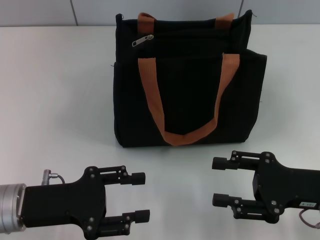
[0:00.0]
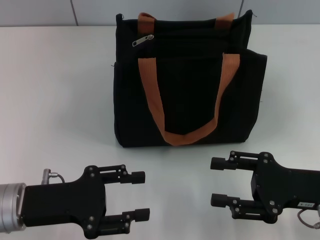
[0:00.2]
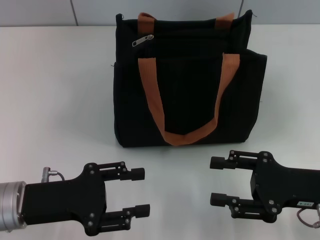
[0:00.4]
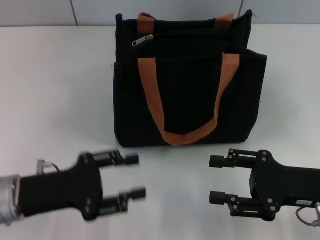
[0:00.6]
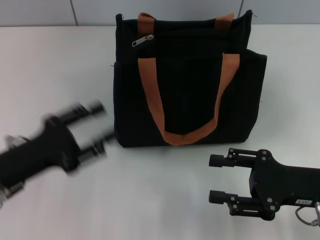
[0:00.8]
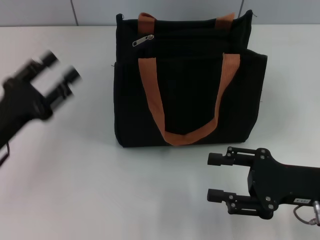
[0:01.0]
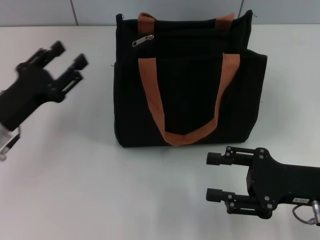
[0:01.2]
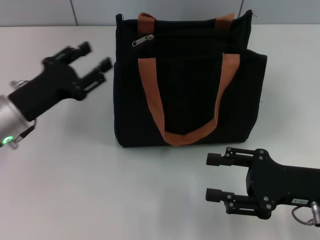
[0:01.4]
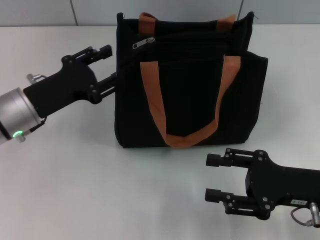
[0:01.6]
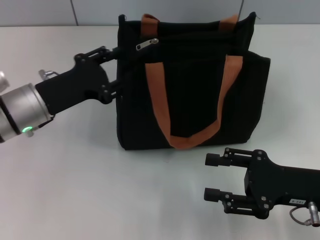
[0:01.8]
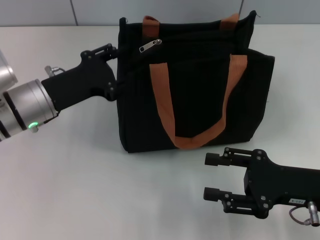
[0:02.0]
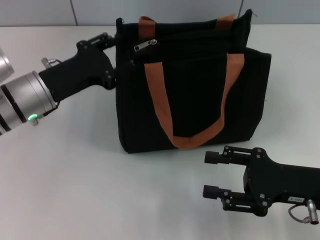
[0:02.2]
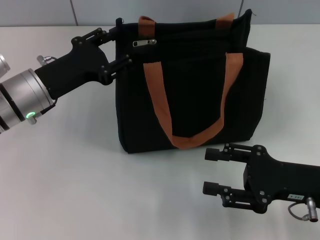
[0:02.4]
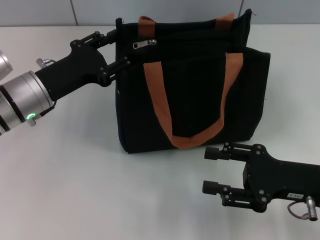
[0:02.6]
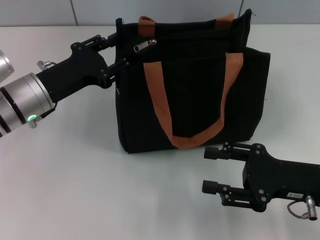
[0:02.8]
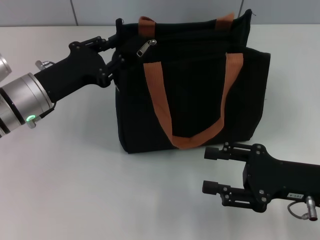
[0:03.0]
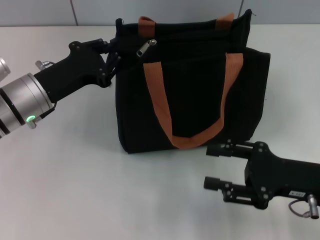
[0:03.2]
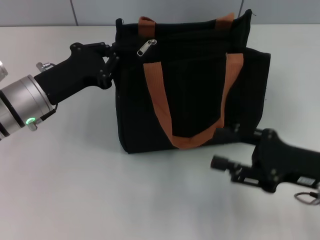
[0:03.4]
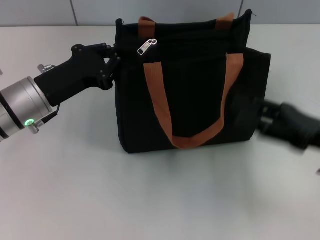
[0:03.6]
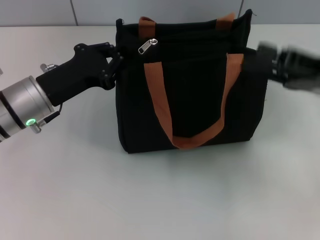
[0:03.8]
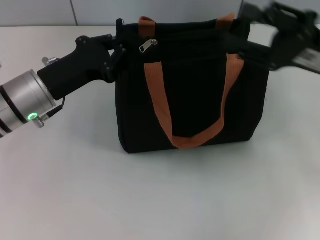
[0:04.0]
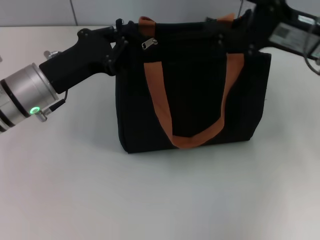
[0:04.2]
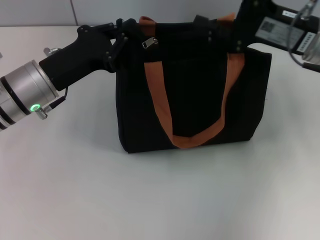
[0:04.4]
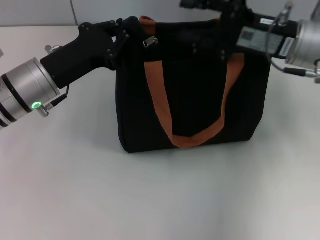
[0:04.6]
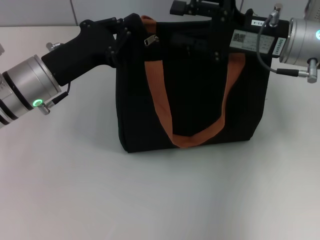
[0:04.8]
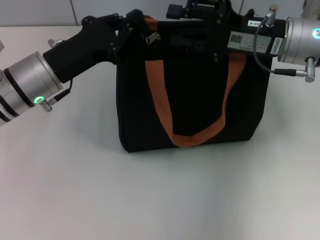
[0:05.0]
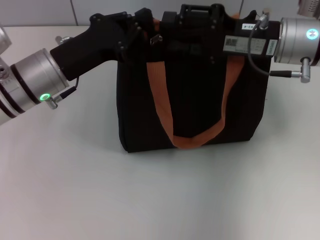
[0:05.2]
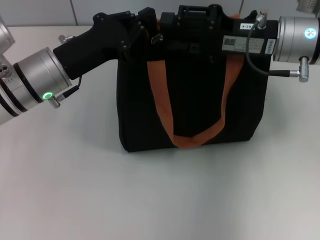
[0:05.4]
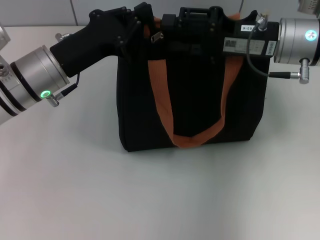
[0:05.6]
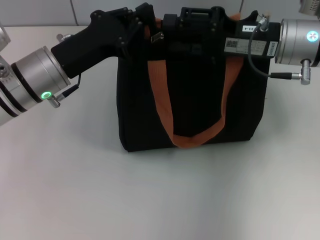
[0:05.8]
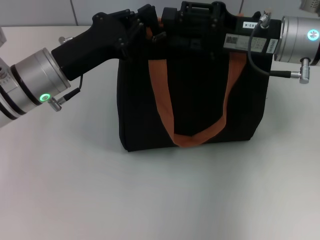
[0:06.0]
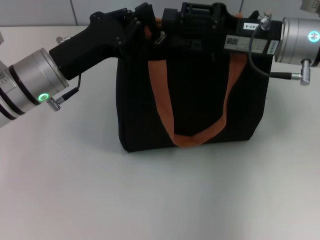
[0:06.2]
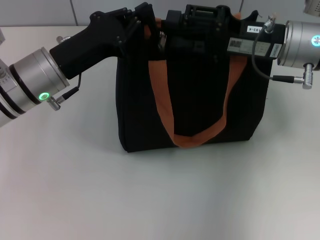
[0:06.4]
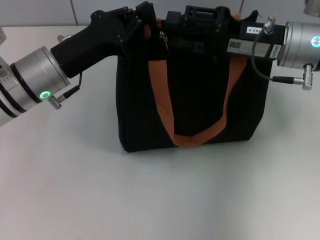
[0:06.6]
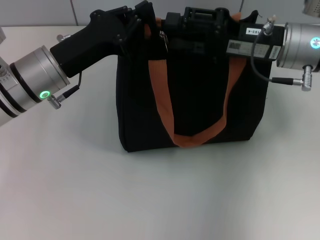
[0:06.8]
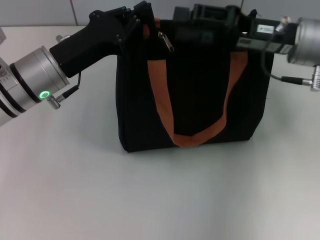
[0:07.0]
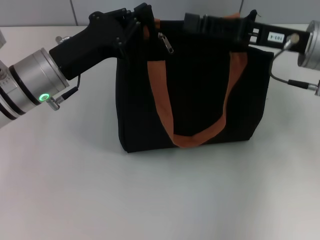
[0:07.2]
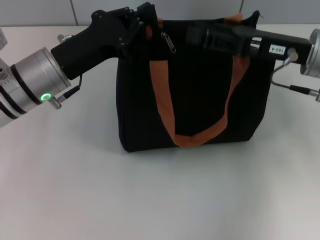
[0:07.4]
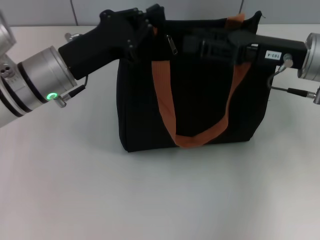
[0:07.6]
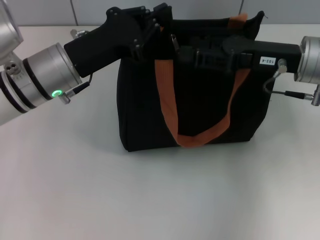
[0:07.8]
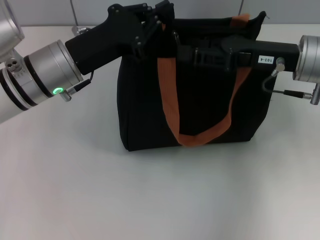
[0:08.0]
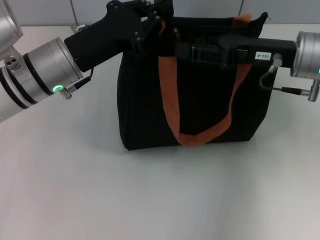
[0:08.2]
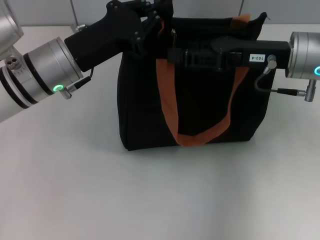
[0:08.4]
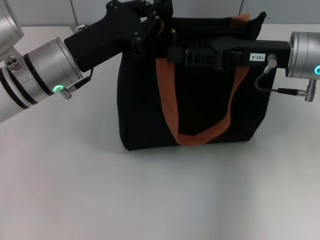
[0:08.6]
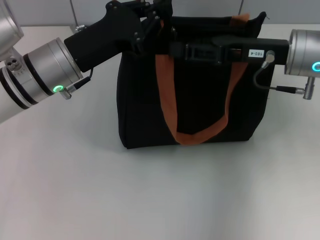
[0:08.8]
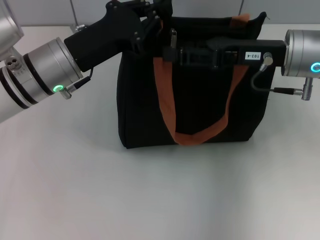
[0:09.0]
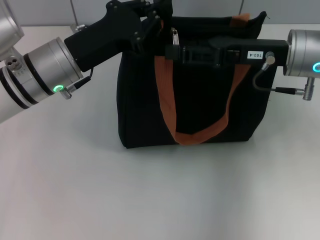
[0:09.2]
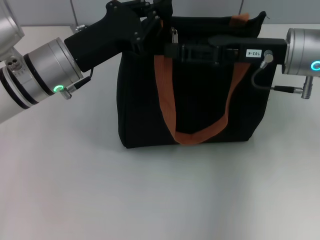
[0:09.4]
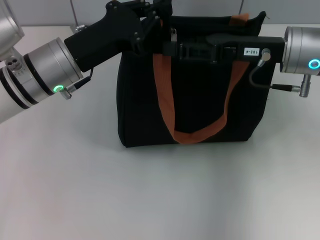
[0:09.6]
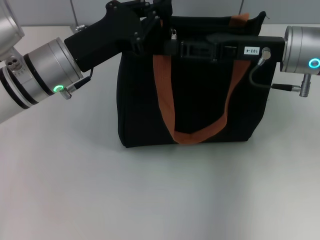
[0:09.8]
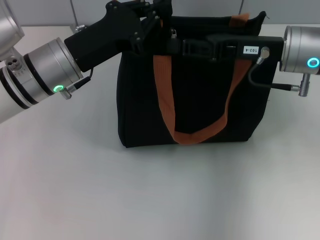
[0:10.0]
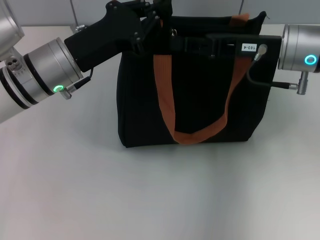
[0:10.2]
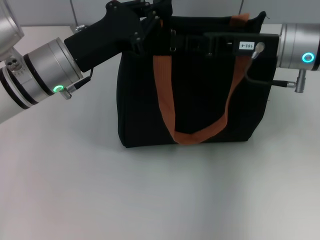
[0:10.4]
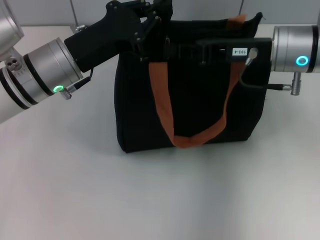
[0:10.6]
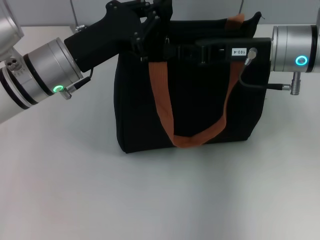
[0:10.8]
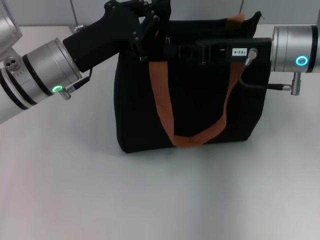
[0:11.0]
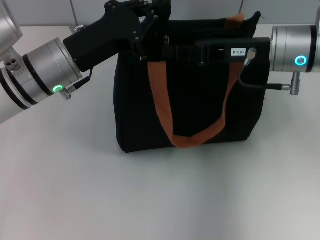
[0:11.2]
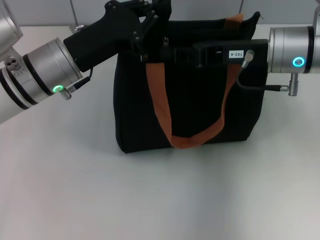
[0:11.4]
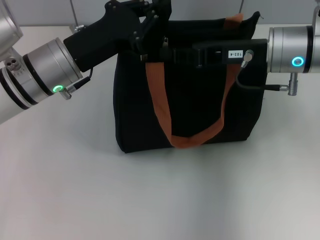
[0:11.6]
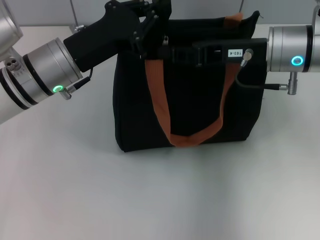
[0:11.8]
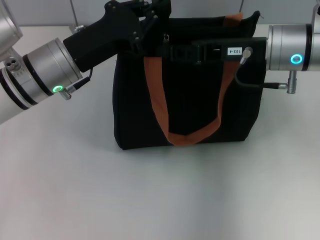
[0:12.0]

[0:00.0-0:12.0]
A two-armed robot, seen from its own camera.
0:00.0 to 0:01.6: The left gripper goes about 10 cm forward.
0:01.6 to 0:03.0: The grippers move only a little.
0:03.0 to 0:04.4: The left gripper closes. The right gripper moves forward and upward, about 15 cm.
0:04.4 to 0:06.0: The grippers stay close to where they were, moving slightly.
0:07.6 to 0:09.0: The grippers make only small movements.
0:09.0 to 0:10.4: The right gripper closes up.
0:10.4 to 0:12.0: Neither gripper changes place.

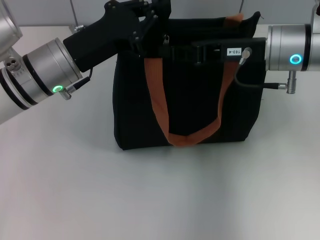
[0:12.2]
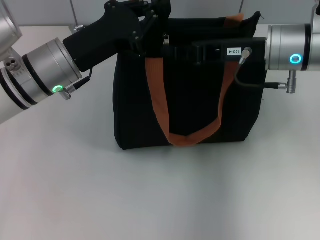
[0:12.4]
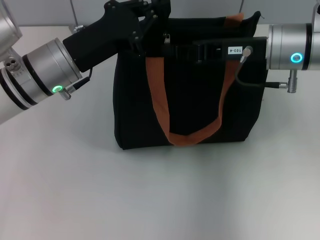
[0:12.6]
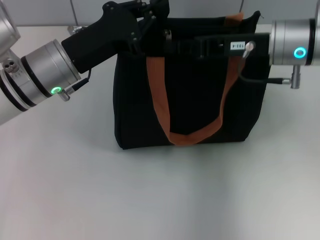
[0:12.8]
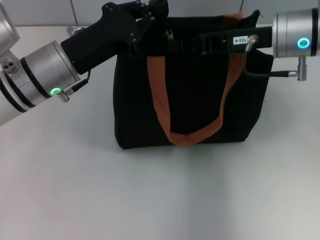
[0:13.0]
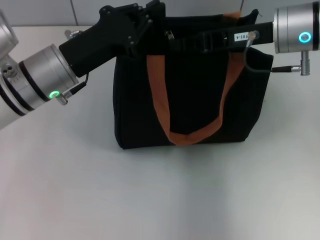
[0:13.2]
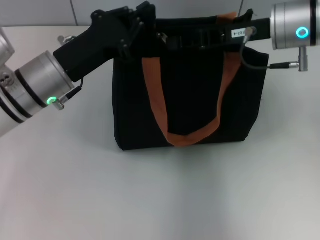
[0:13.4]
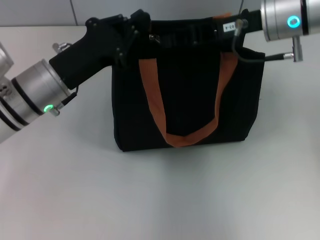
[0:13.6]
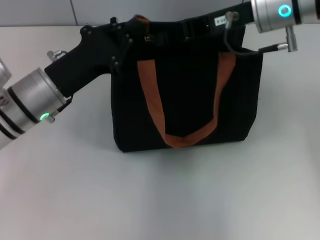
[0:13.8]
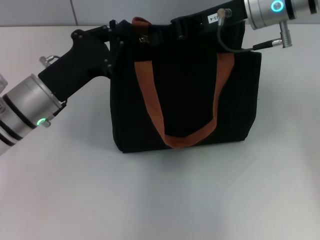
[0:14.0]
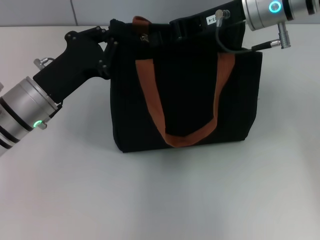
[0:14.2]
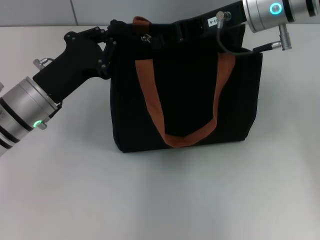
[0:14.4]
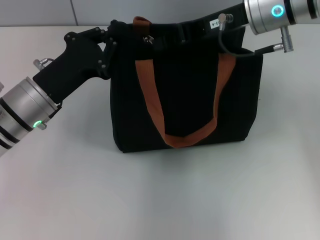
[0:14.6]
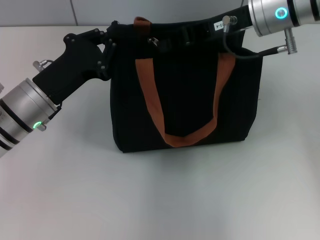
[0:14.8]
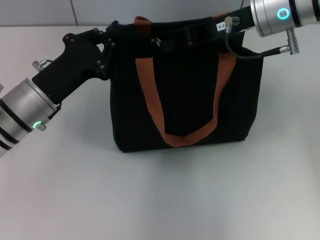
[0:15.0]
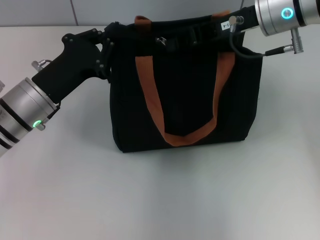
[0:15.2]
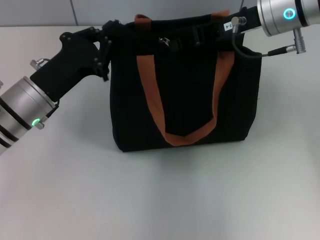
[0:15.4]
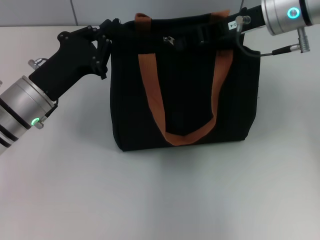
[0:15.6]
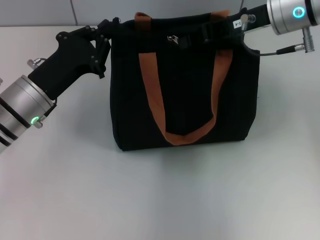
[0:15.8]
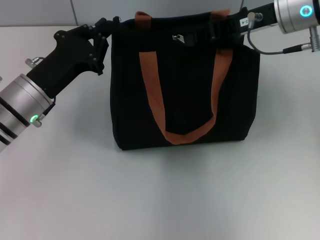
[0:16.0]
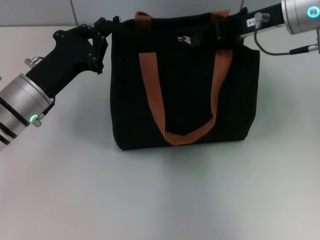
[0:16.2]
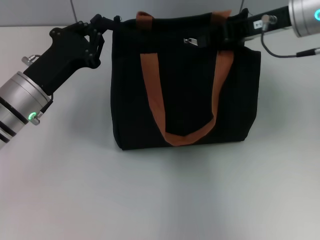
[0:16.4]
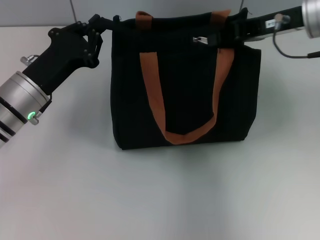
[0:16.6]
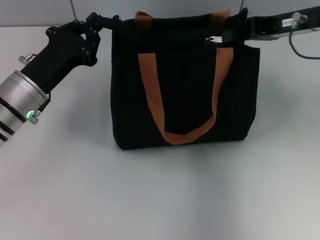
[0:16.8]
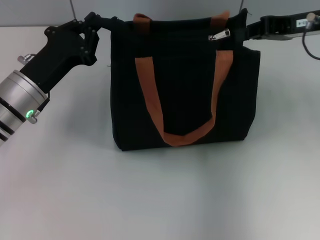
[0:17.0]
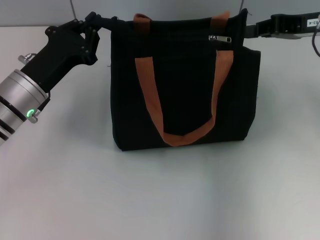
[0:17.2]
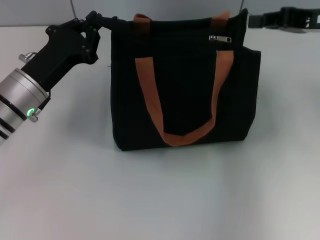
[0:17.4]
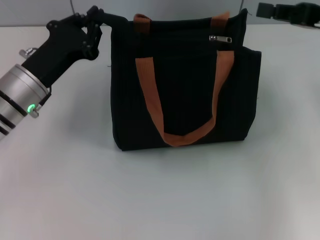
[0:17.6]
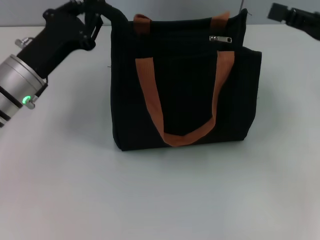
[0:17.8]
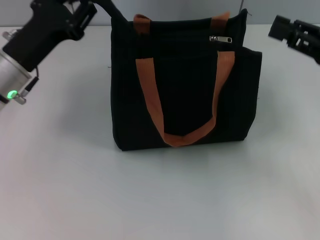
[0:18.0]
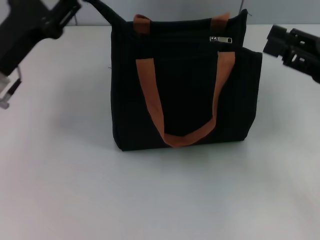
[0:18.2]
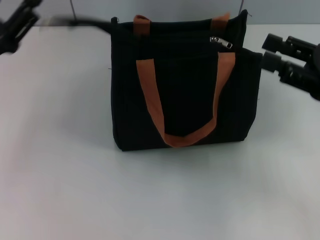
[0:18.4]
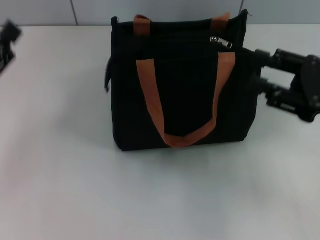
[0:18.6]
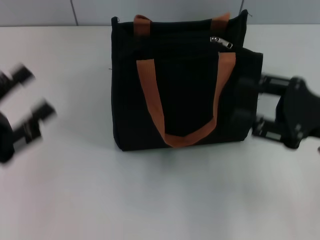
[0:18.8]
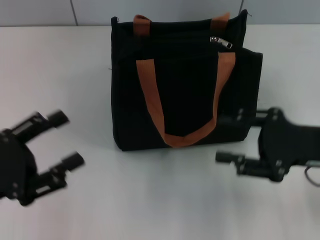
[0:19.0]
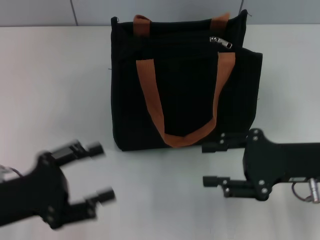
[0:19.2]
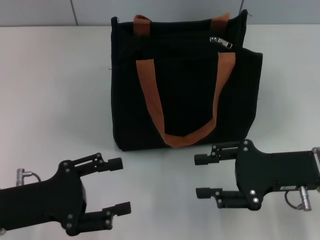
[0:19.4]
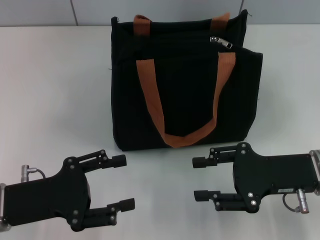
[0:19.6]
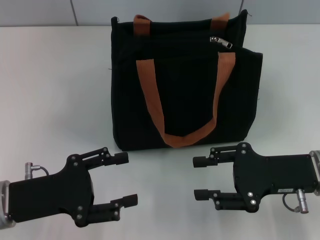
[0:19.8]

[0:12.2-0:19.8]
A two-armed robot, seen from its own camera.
Step, 0:12.2 to 0:17.4: Pull up the zipper with your right hand.
Step, 0:17.6 to 0:18.4: Grab the zipper with your left hand.
0:12.2 to 0:13.8: The right gripper shifts roughly 5 cm upward, and closes.
0:13.8 to 0:15.2: The grippers stay close to where they were, moving slightly.
0:15.2 to 0:16.8: The right gripper travels to the right by some 10 cm.
0:16.8 to 0:18.2: The left gripper shifts by some 5 cm, and opens. Meanwhile the right gripper moves backward, downward and to the right, some 15 cm, and opens.
0:18.2 to 0:19.8: The left gripper shifts some 10 cm backward and downward, and opens up. Meanwhile the right gripper travels downward and to the left by roughly 10 cm.

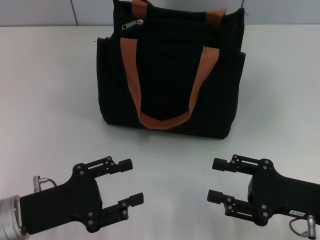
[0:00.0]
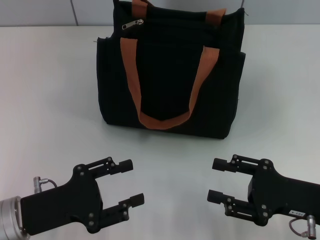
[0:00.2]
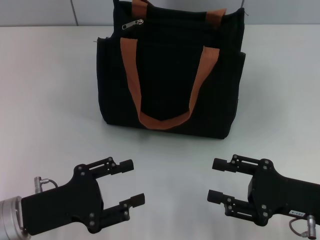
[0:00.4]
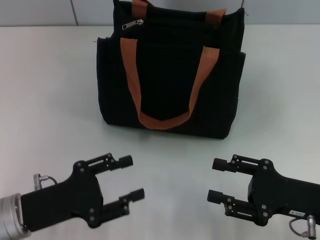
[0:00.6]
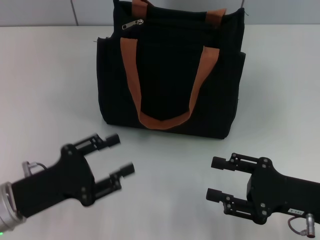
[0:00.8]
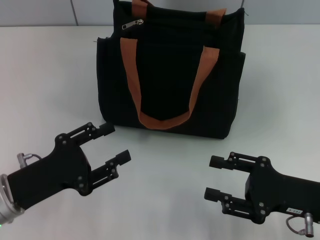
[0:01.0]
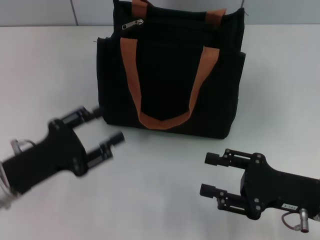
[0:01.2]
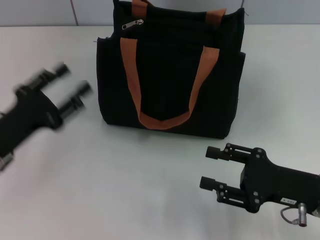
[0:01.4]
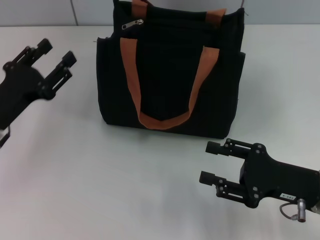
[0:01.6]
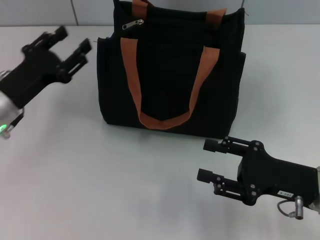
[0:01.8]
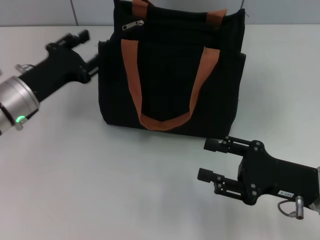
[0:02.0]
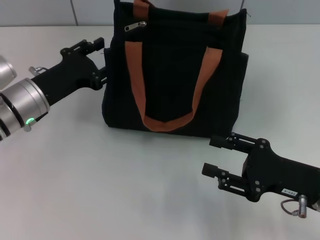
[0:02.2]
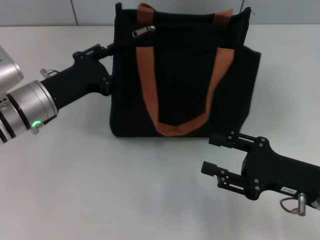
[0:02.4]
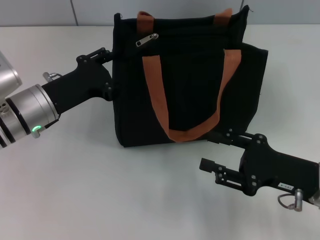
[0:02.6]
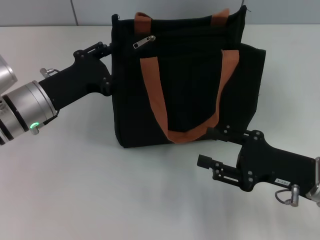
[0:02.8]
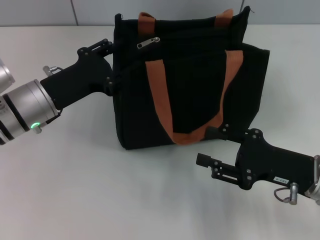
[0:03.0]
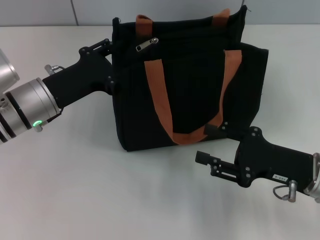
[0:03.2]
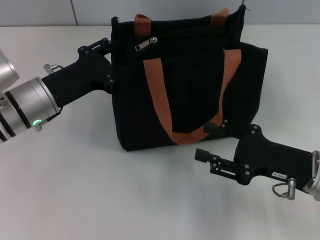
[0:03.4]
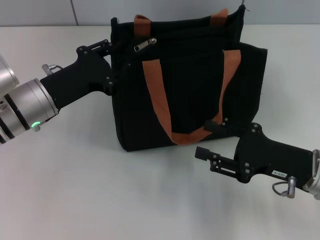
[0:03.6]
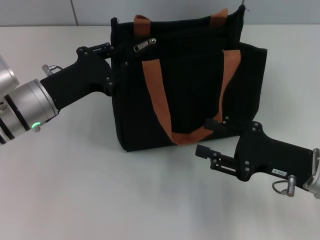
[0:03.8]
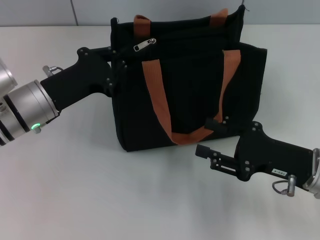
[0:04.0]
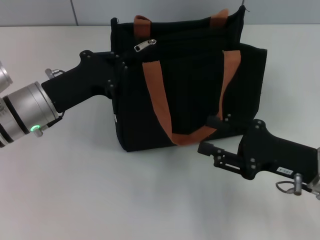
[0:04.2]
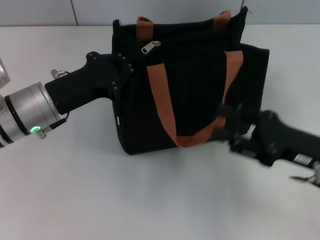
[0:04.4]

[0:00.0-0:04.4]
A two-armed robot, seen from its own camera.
0:00.0 to 0:01.4: The left gripper travels forward by roughly 5 cm.
0:01.4 to 0:03.0: The left gripper travels forward and to the right by roughly 10 cm.
0:03.0 to 0:04.4: The left gripper closes.
